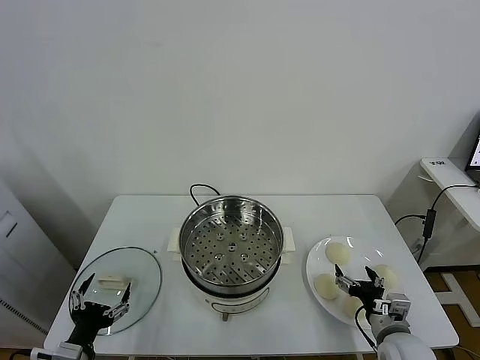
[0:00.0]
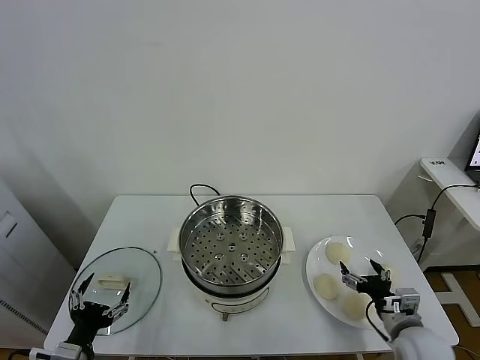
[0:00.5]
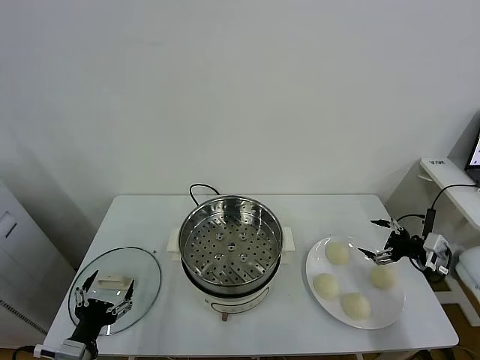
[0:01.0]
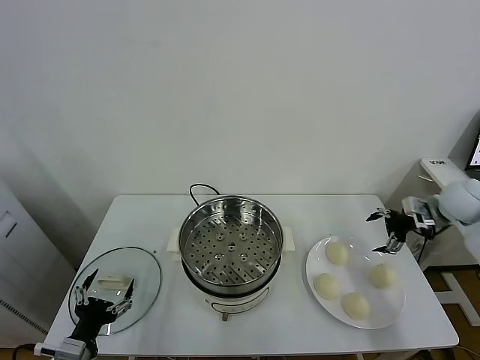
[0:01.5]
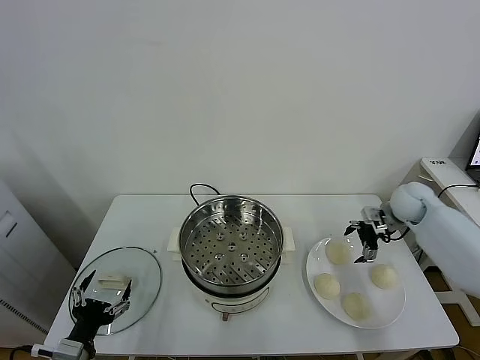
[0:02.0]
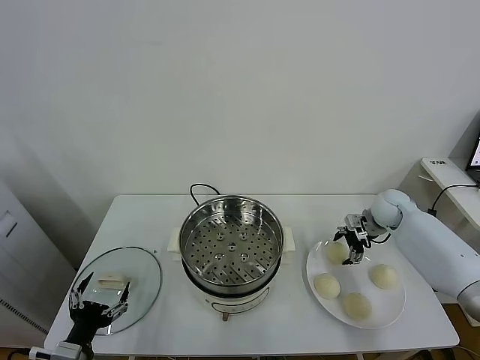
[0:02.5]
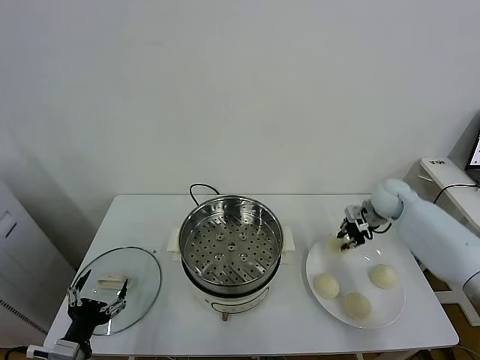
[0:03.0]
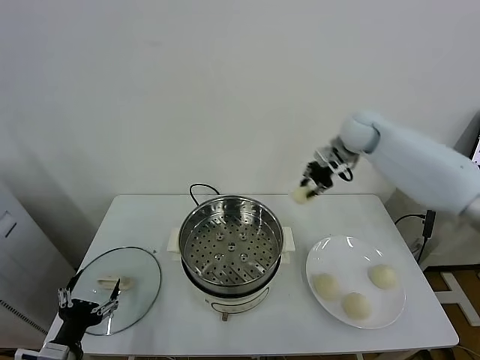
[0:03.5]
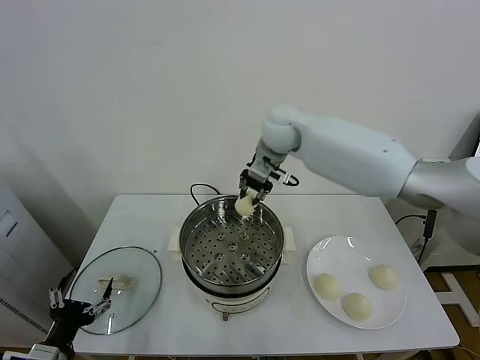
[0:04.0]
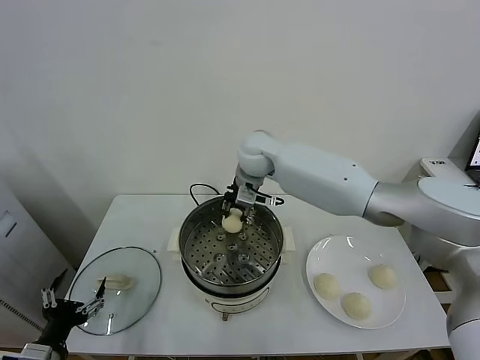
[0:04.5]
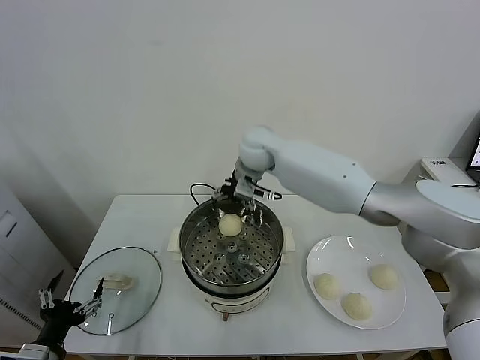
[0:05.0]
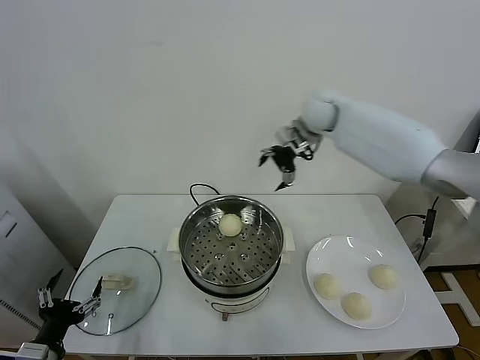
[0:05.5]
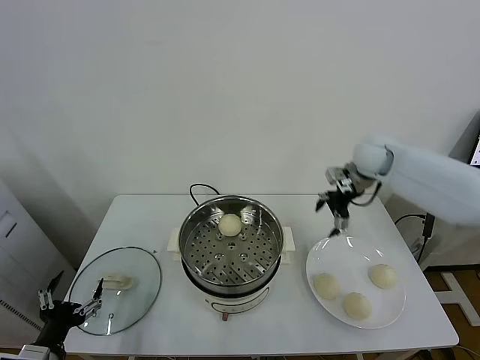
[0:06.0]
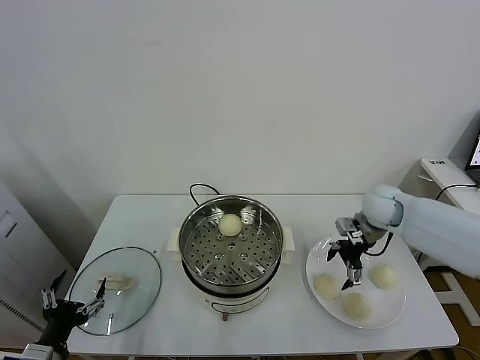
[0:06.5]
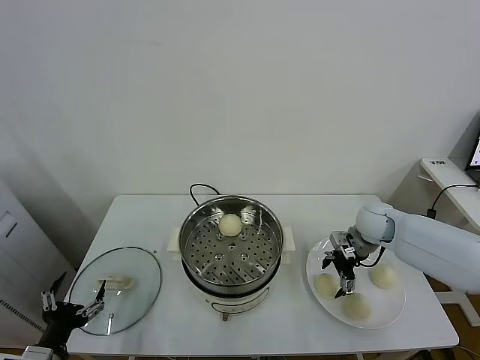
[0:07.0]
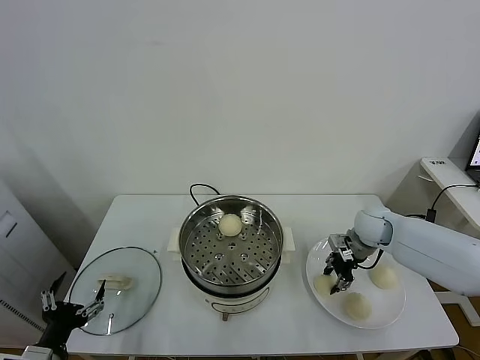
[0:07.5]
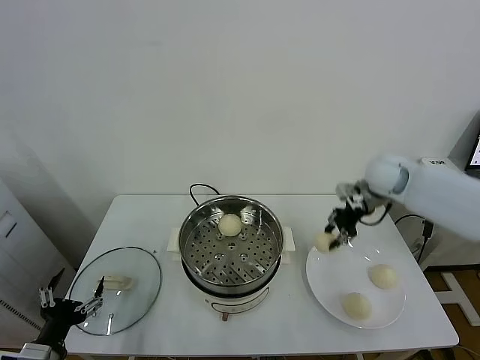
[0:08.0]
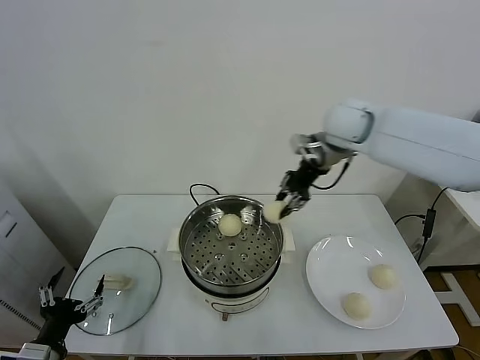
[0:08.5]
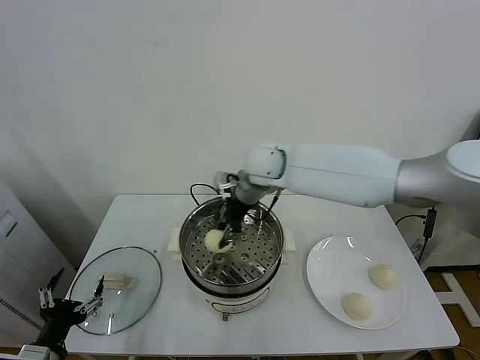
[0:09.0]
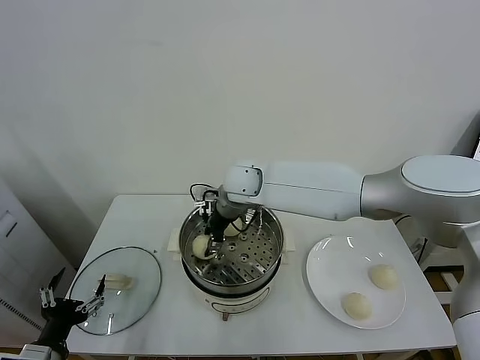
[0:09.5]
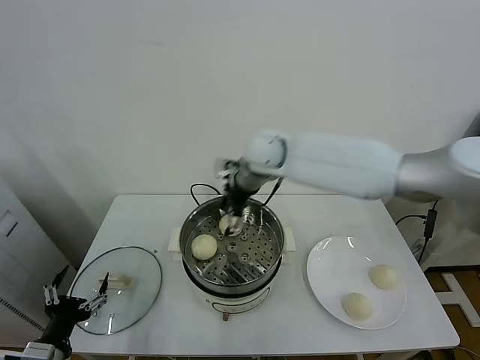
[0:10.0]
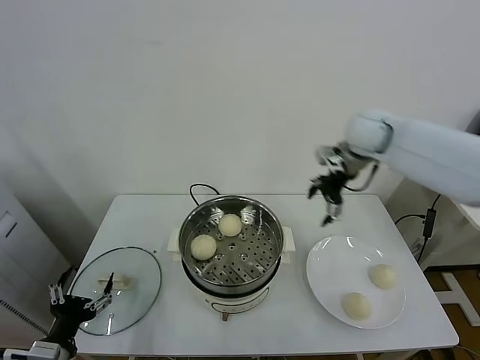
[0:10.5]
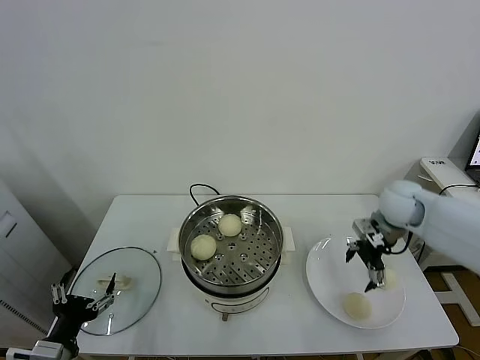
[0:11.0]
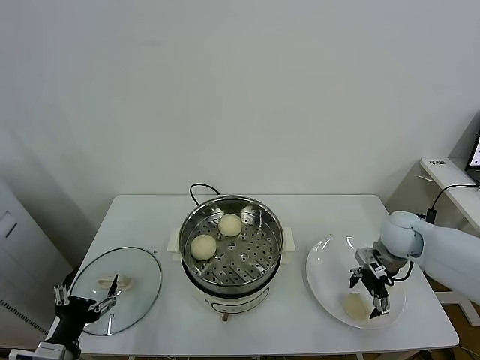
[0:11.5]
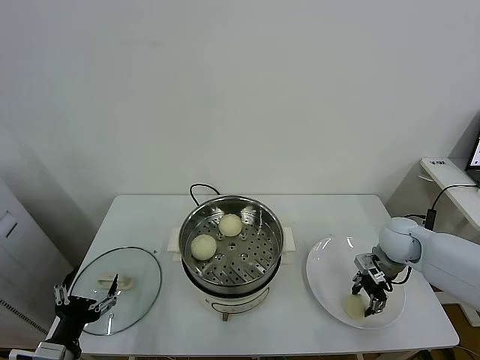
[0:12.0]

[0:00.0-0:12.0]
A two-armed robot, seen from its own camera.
Task of the whole recording: take steamed baozi put them in steamer.
Step, 0:00.0 to 0:02.5: Grasp the baozi in the plate with right gripper.
Step, 0:03.0 to 0:04.5: Place the baozi on the steamer with right gripper.
Step, 0:05.0 to 0:07.0: Grasp the baozi in the plate with right gripper.
Step, 0:07.5 to 0:09.5: Place the baozi on the steamer with right gripper.
Step, 0:10.0 to 0:12.0: Grasp the baozi in the plate with right gripper.
0:02.0 to 0:04.0: The right gripper moves to the left and upward, approximately 40 cm, and closes.
0:04.0 to 0:06.0: The right gripper goes approximately 25 cm to the right, and opens.
0:06.0 to 0:08.0: The right gripper goes about 10 cm upward, and closes.
0:08.0 to 0:10.0: The right gripper moves to the left, approximately 20 cm, and opens its fingers.
0:10.0 to 0:12.0: The right gripper moves to the right and downward, roughly 35 cm, and closes its fingers.

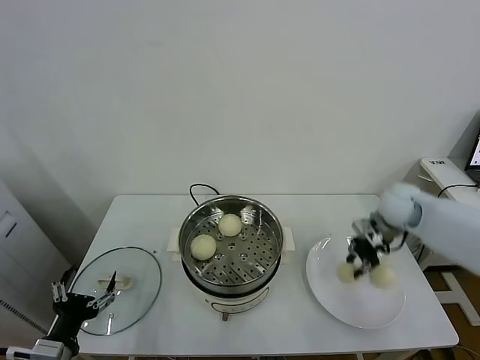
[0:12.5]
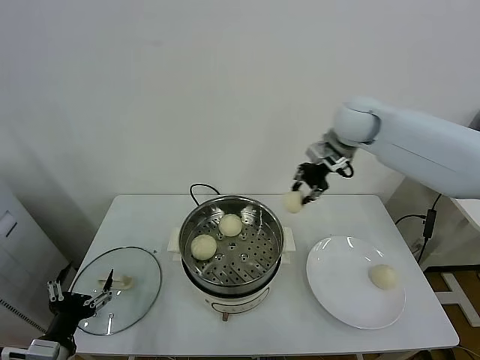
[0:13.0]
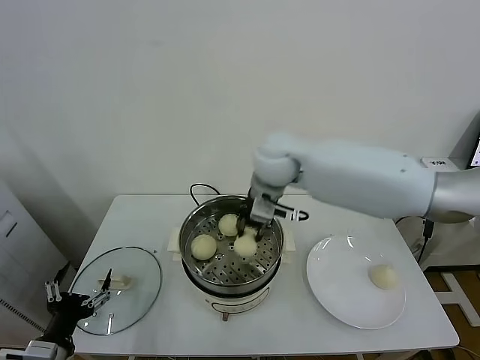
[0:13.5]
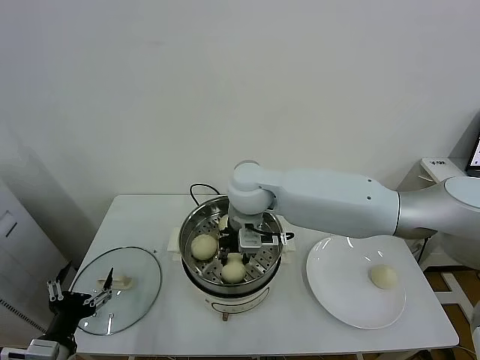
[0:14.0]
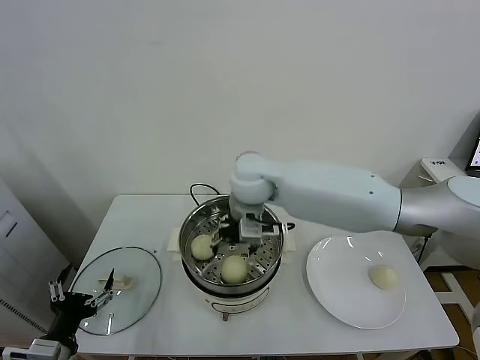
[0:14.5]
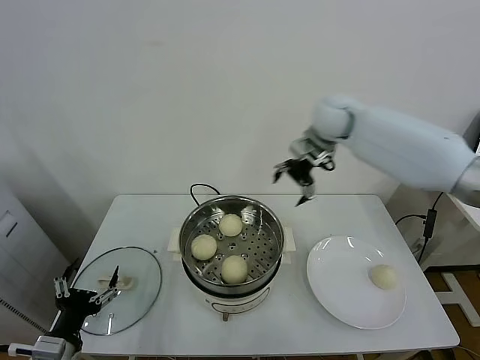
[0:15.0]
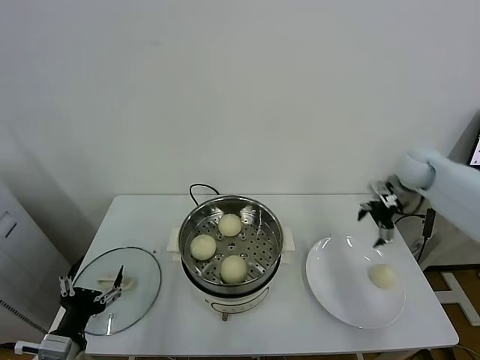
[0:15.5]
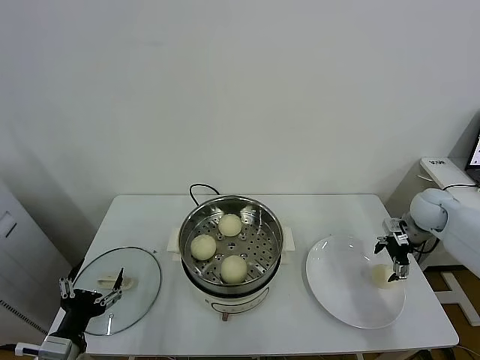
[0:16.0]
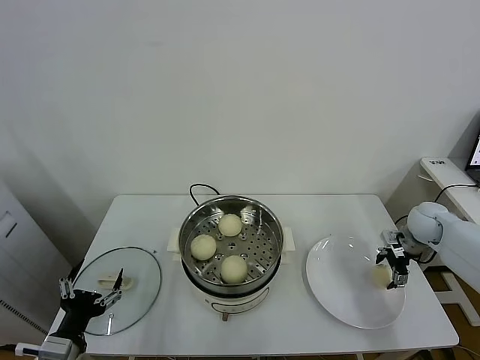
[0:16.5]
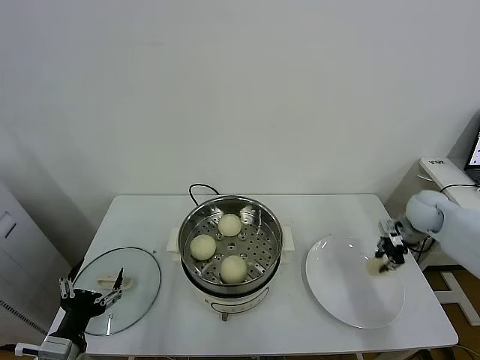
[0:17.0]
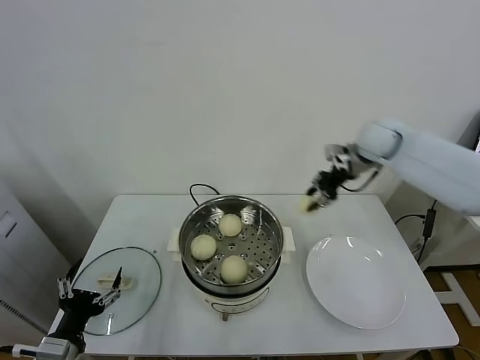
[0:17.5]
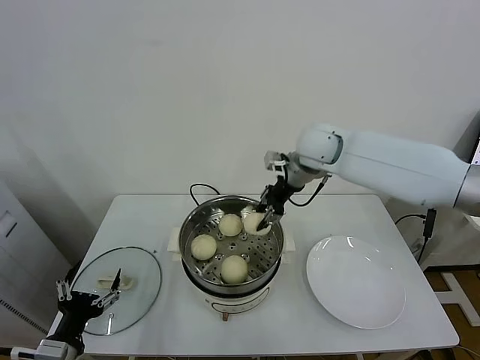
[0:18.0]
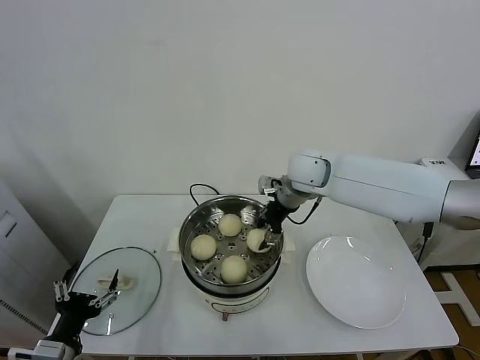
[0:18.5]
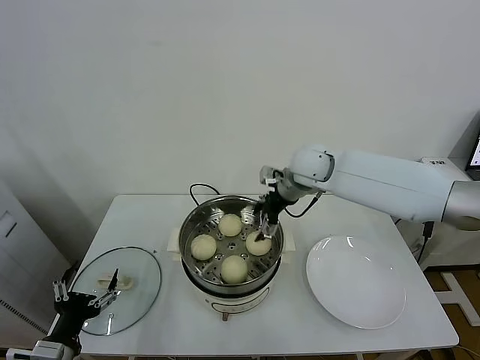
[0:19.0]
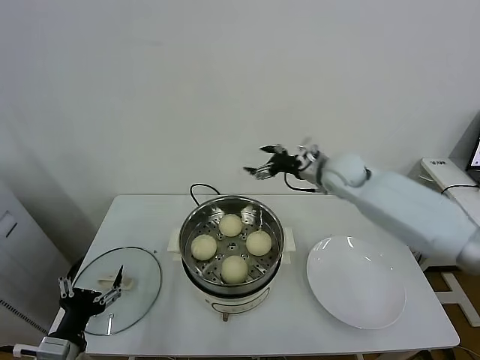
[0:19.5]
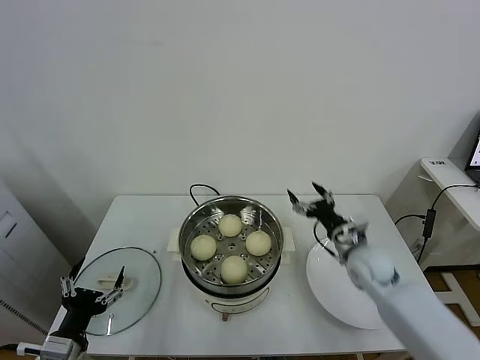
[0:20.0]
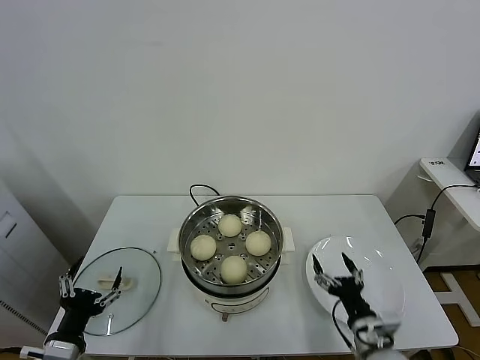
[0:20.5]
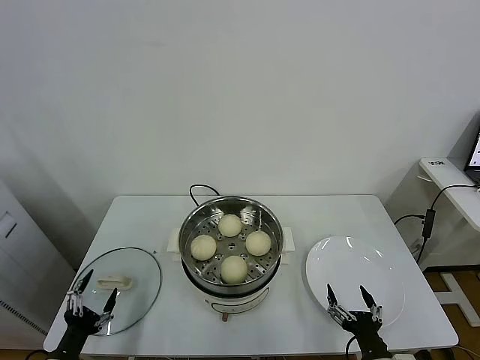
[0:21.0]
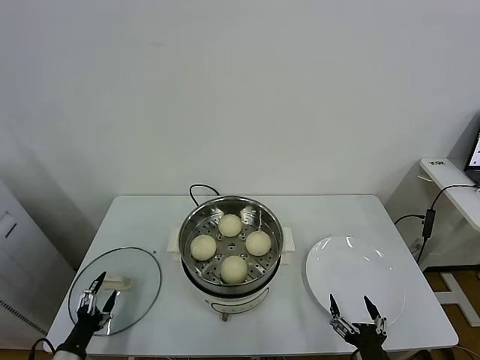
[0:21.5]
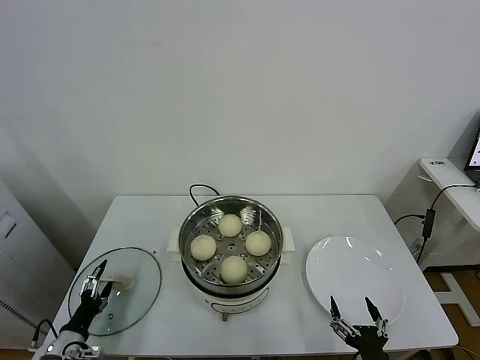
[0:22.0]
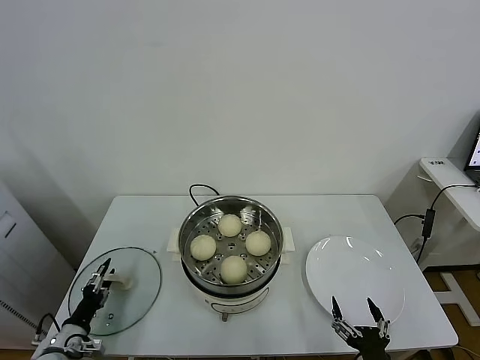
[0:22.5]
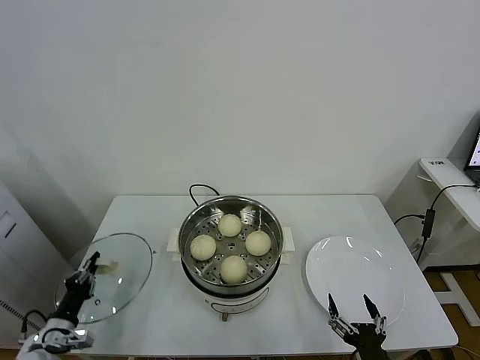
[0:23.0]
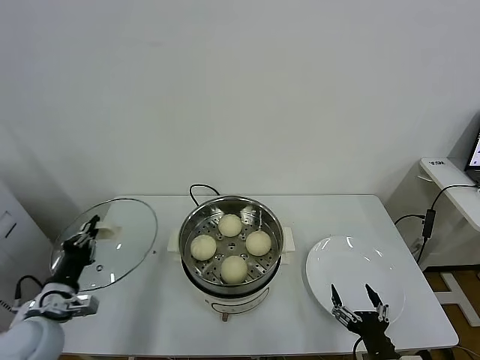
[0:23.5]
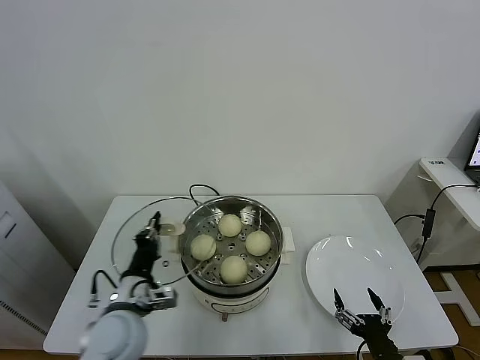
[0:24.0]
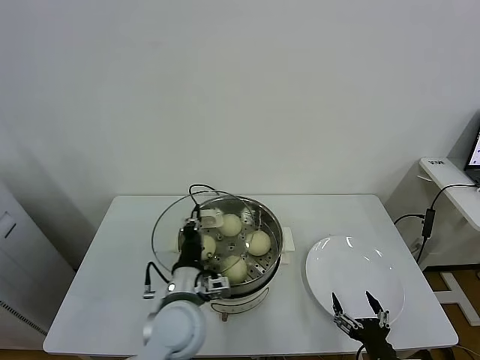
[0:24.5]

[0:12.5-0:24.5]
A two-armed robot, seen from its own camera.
Task of the whole recording: take steamed baozi put them in steamer.
Step, 0:12.5 to 0:14.0: Place the baozi on the steamer with right gripper.
Step, 0:14.5 to 0:16.5: Grasp the baozi in the plate with right gripper.
Step, 0:17.0 to 0:18.5: Place the baozi on the steamer with right gripper.
Step, 0:19.0 to 0:23.0: Grasp the pot lid with left gripper.
0:12.5 to 0:14.5: The right gripper shifts roughly 30 cm to the left, and opens.
0:14.5 to 0:16.5: The right gripper is displaced to the right and downward by approximately 50 cm.
0:16.5 to 0:18.5: The right gripper goes some 35 cm to the left and upward, and closes, then reopens.
0:18.5 to 0:20.5: The right gripper travels backward, downward and to the right by approximately 40 cm, and opens its fingers.
0:20.5 to 0:22.5: The right gripper shifts roughly 10 cm backward. Meanwhile the left gripper heads downward, to the left and forward, covering approximately 20 cm, and closes its fingers.
0:22.5 to 0:24.5: The left gripper travels to the right and upward by some 35 cm, and closes.

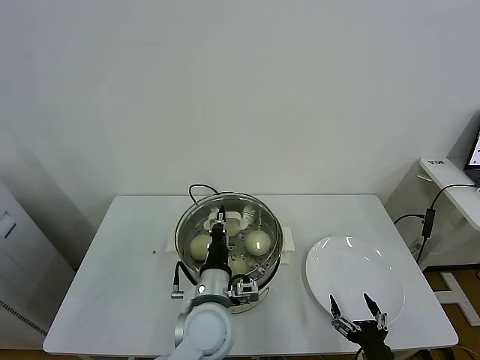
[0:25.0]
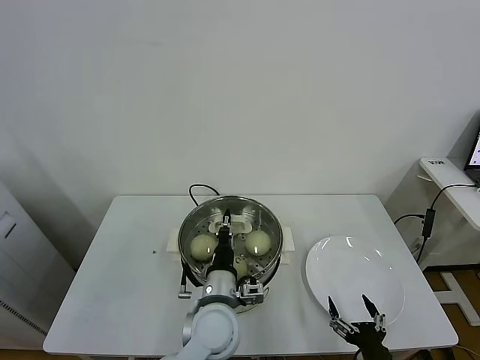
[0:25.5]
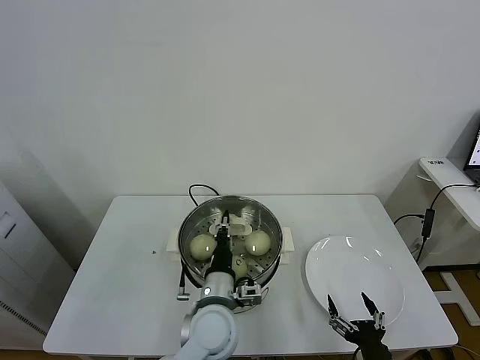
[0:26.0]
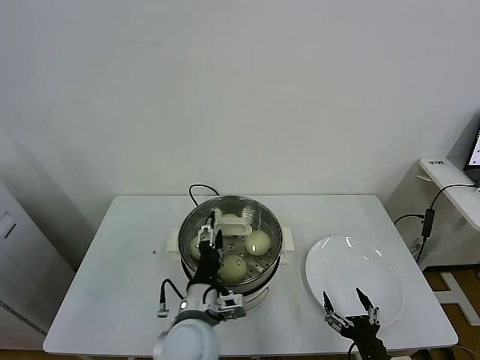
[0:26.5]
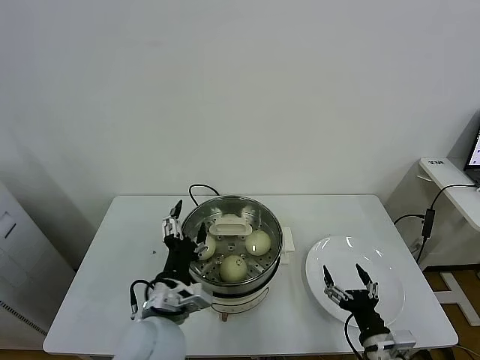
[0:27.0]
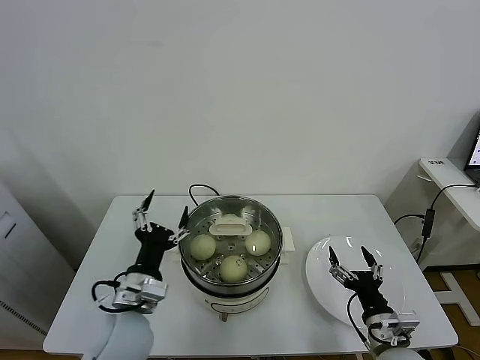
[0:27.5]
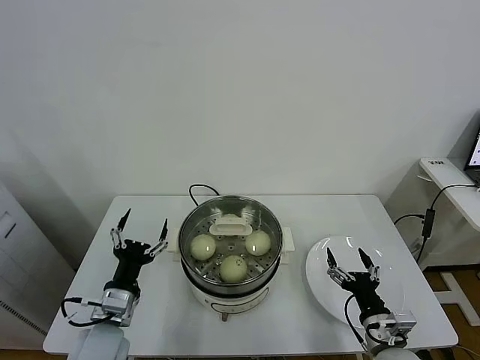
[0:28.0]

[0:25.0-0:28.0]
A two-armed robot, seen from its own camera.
Task of the whole recording: take steamed baozi put them in steamer.
0:25.0 to 0:26.5: The left gripper opens up.
0:26.5 to 0:28.0: The left gripper heads to the left, covering roughly 15 cm. Meanwhile the right gripper goes roughly 10 cm forward.
